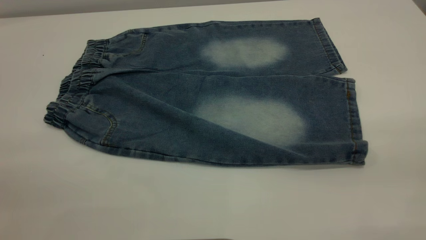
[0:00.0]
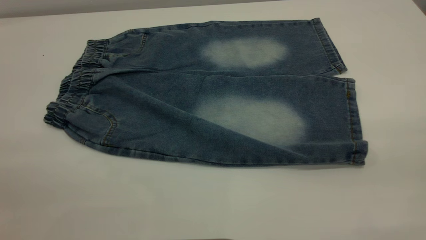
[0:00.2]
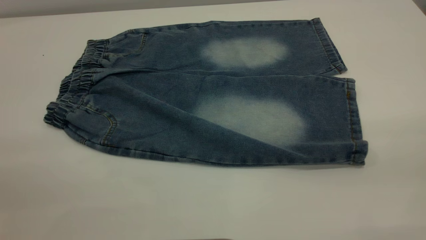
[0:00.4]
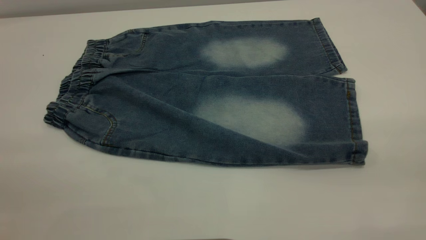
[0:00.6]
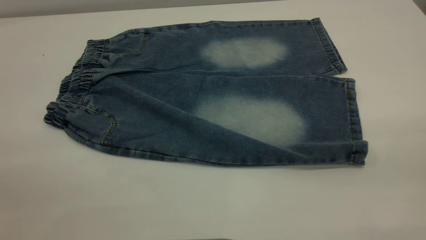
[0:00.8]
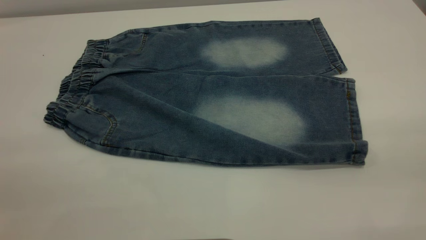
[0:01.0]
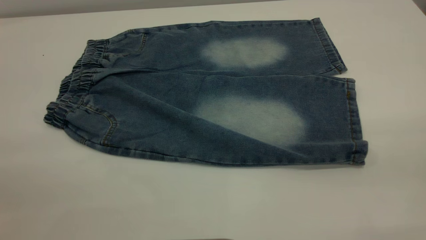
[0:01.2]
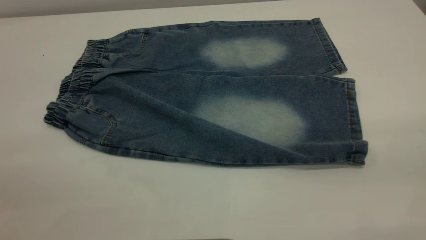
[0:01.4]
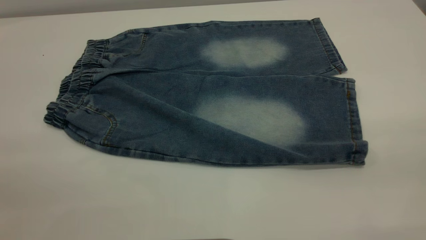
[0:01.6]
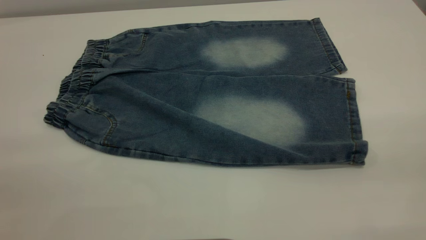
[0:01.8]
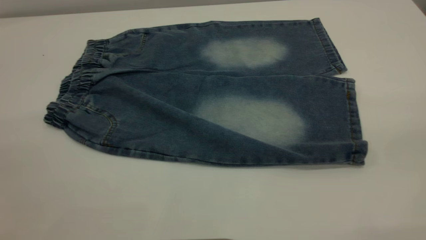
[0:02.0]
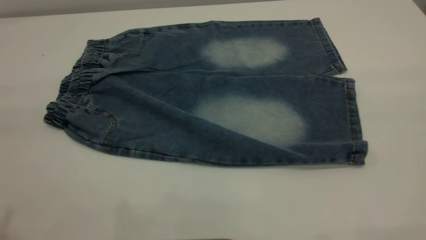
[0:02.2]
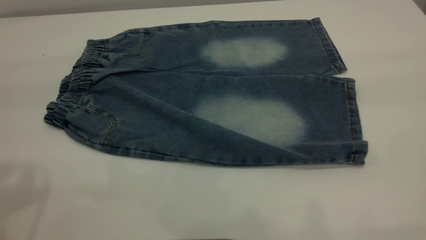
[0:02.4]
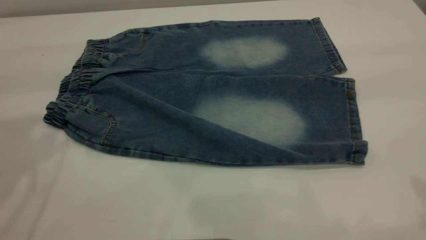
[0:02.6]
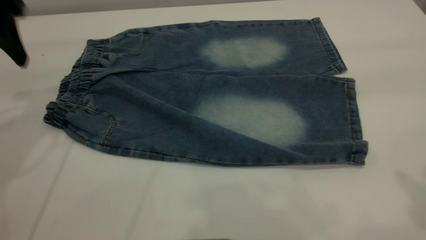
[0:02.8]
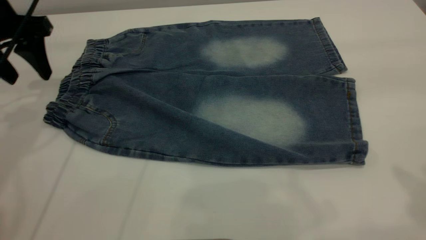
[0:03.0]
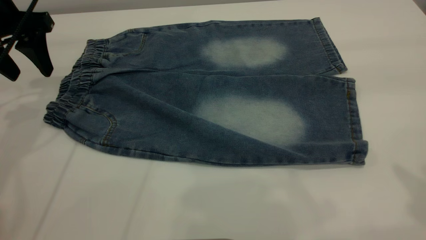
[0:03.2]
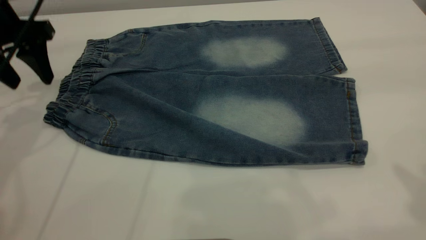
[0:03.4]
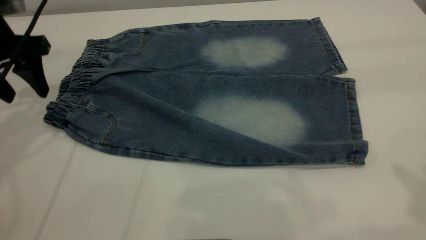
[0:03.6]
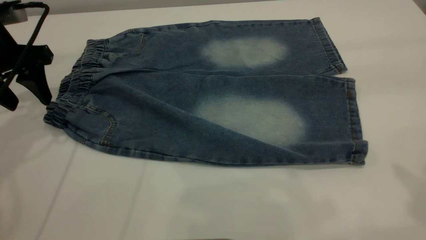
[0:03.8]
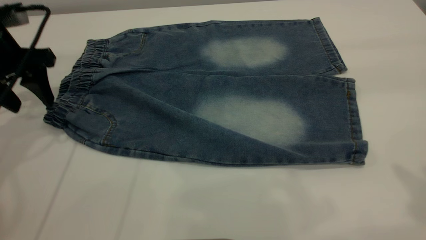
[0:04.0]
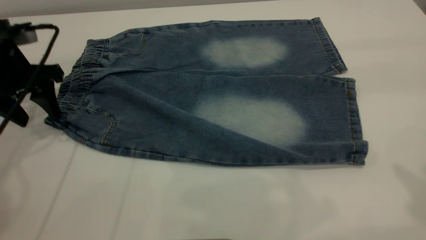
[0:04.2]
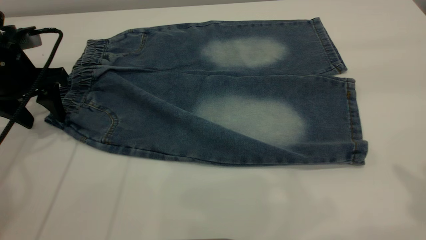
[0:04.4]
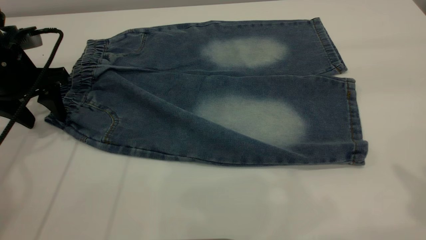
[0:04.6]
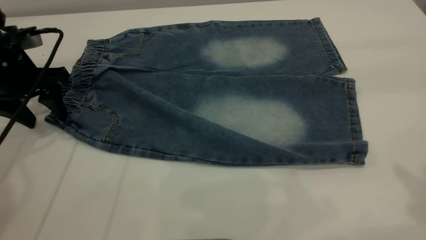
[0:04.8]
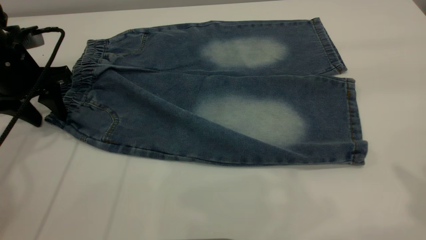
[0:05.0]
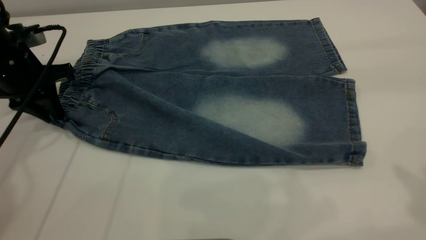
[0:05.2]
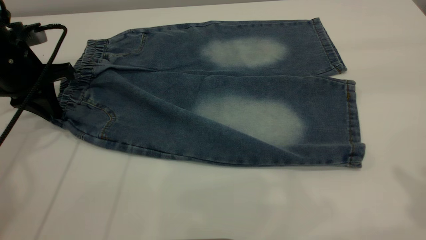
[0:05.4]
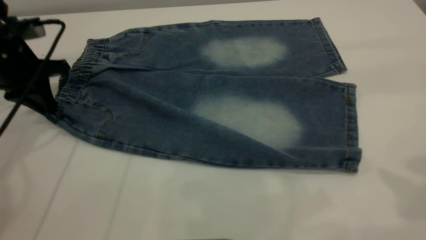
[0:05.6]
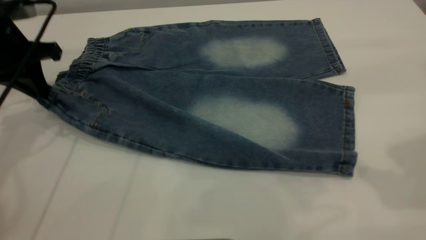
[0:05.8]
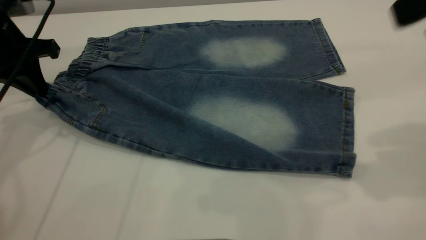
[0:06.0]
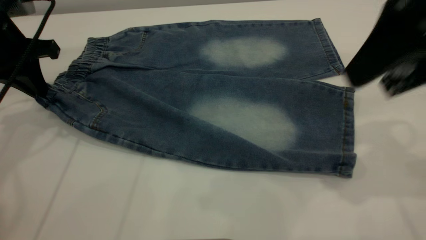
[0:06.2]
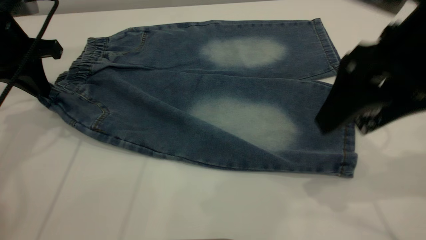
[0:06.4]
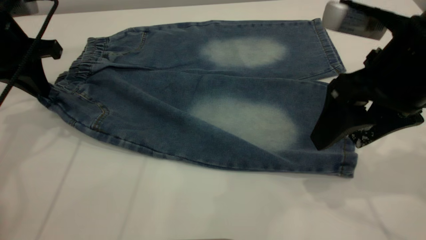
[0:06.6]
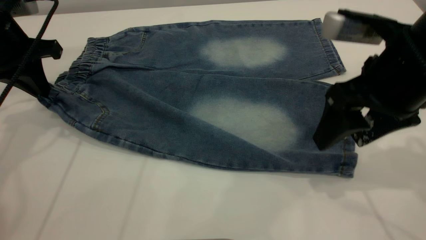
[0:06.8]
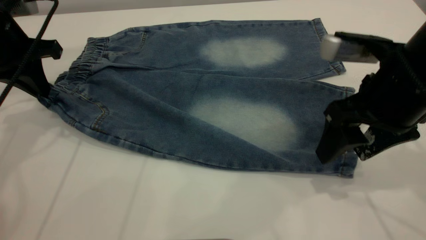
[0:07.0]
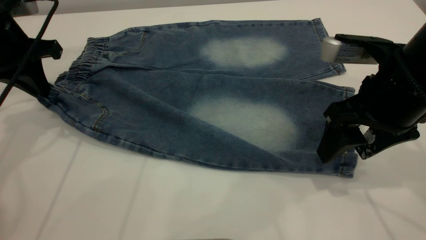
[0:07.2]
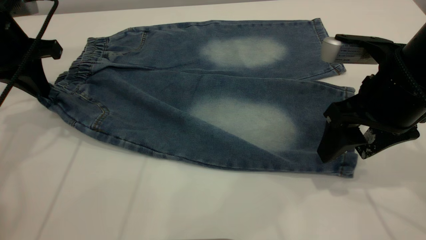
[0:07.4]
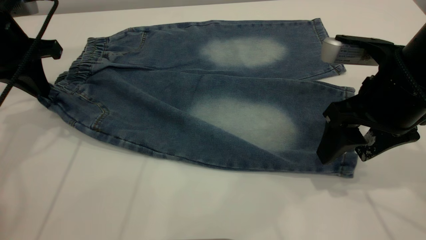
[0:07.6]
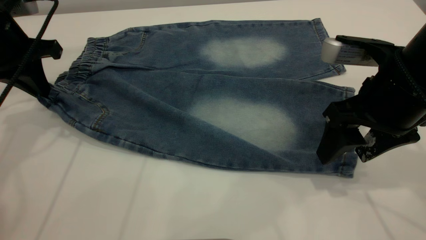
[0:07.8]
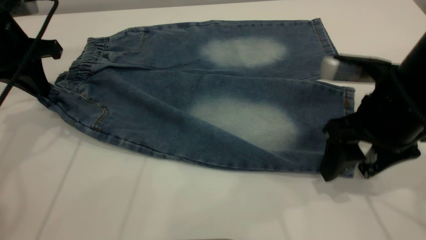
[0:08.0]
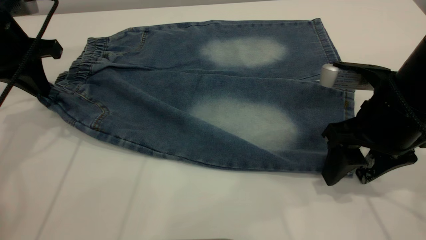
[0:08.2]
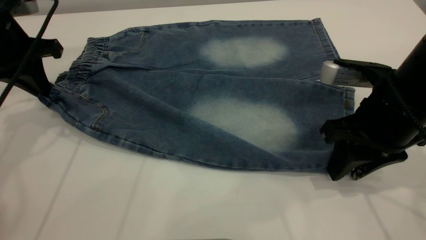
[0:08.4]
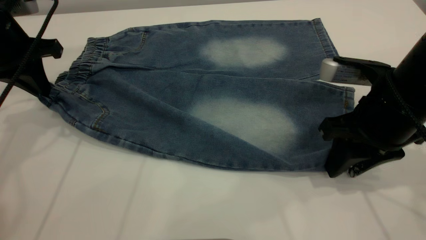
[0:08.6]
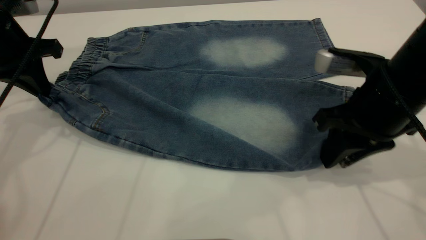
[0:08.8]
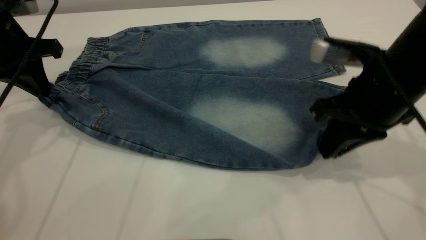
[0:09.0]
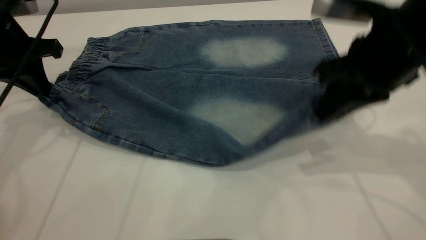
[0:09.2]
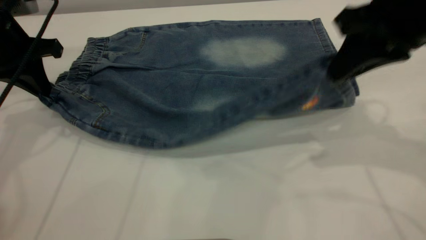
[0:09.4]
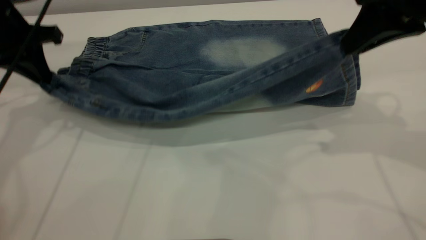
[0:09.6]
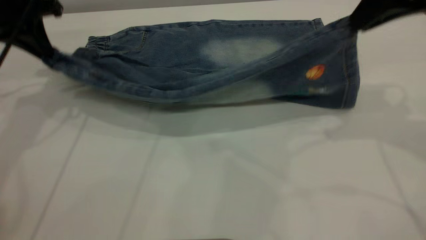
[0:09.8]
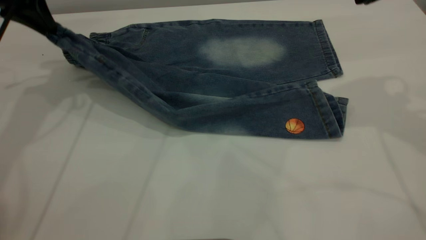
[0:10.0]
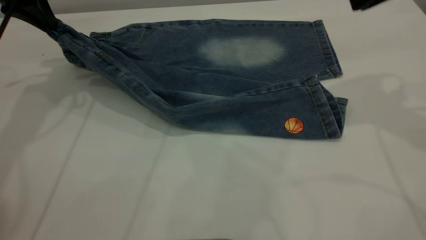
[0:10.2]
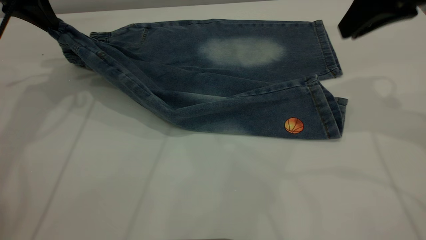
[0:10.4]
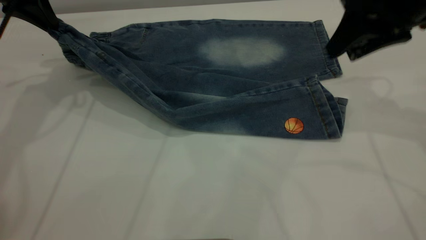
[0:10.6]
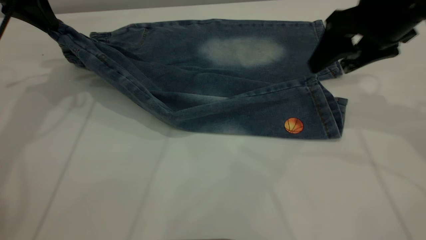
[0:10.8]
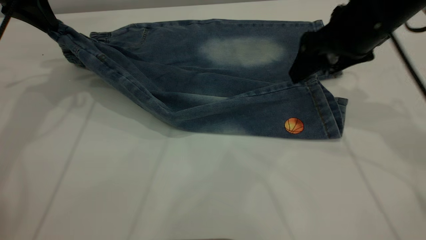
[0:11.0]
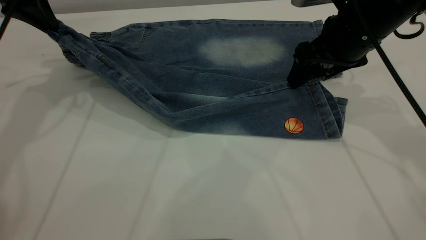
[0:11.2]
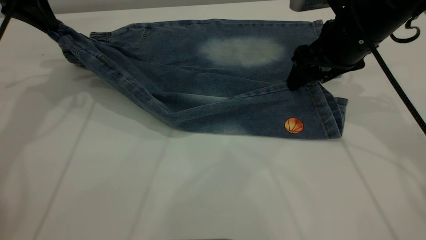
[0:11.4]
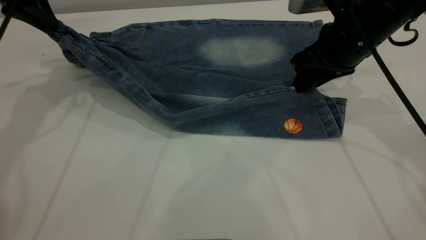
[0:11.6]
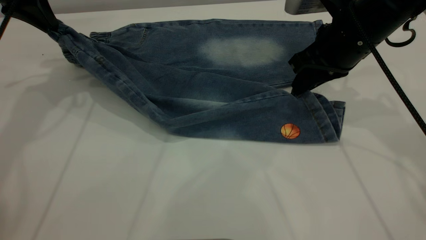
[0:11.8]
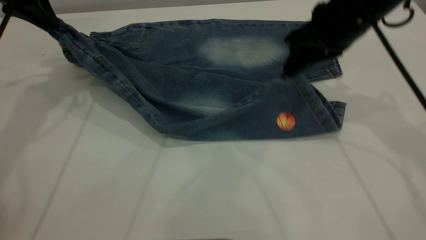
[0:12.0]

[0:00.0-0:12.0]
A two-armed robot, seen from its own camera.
0:00.0 to 0:01.6: Both grippers stay put.
0:01.6 to 0:03.0: The left gripper is displaced forward by about 40 cm.
0:03.0 to 0:04.4: The left gripper goes approximately 10 cm downward.
0:04.4 to 0:06.0: The right gripper travels downward and forward by about 10 cm; the left gripper closes.
0:06.0 to 0:07.6: The right gripper shifts some 15 cm downward.
0:07.6 to 0:09.0: The right gripper closes.
0:09.0 to 0:10.4: Both grippers move upward and forward, approximately 10 cm.
0:10.4 to 0:12.0: The right gripper heads downward and to the left, covering about 10 cm, and opens, then closes once more.

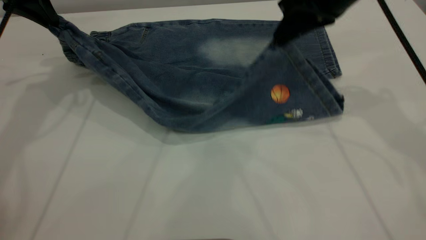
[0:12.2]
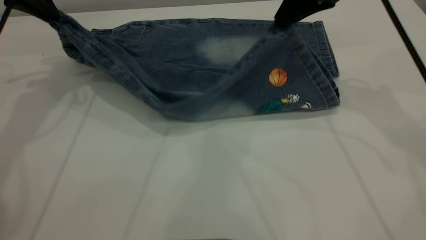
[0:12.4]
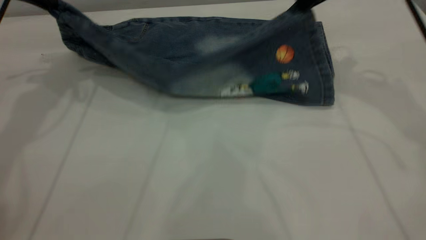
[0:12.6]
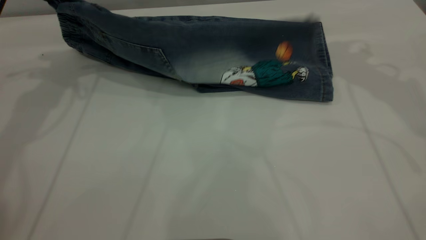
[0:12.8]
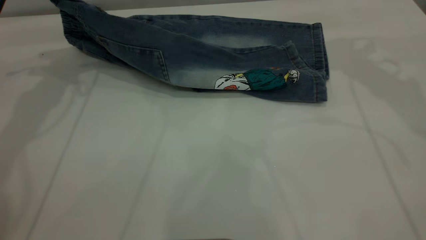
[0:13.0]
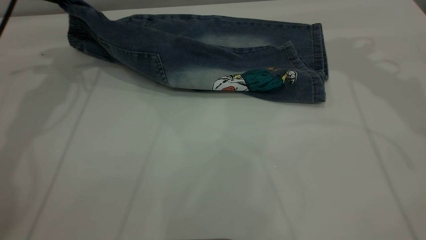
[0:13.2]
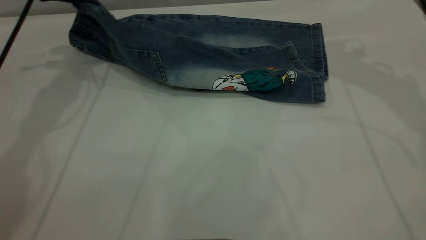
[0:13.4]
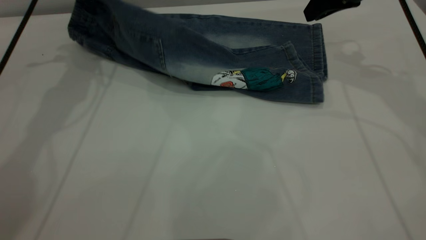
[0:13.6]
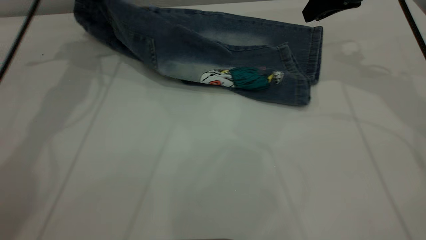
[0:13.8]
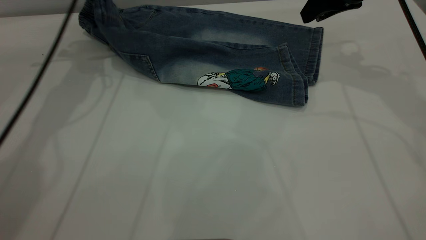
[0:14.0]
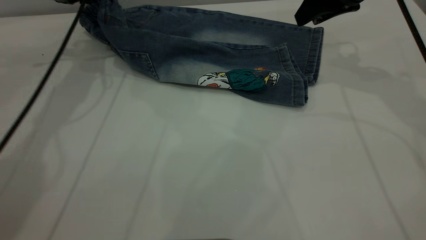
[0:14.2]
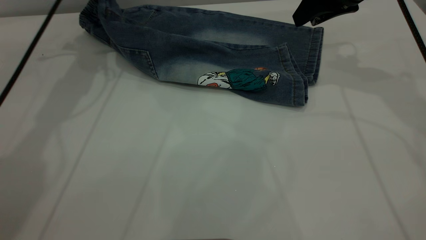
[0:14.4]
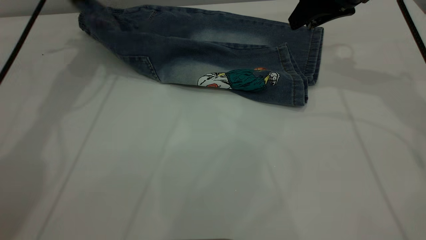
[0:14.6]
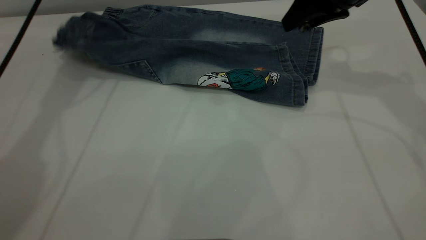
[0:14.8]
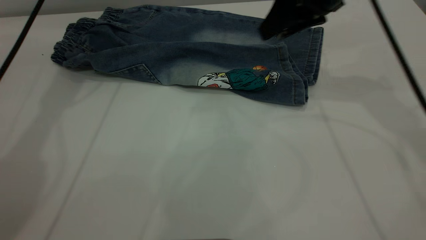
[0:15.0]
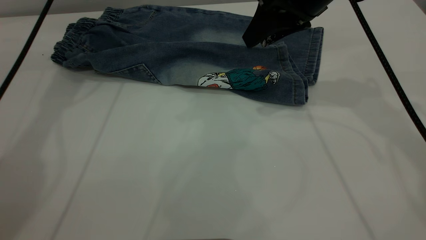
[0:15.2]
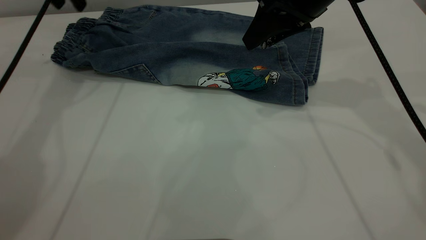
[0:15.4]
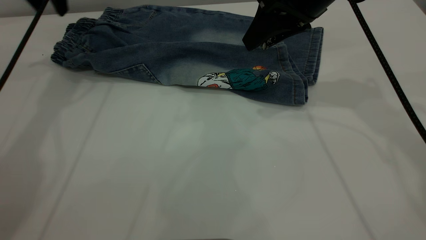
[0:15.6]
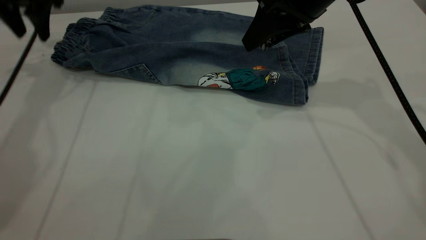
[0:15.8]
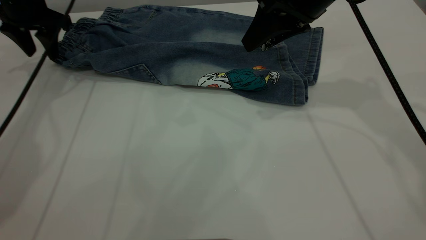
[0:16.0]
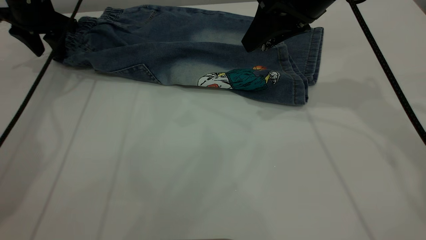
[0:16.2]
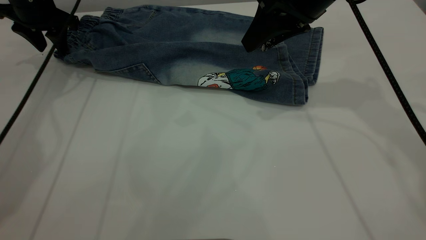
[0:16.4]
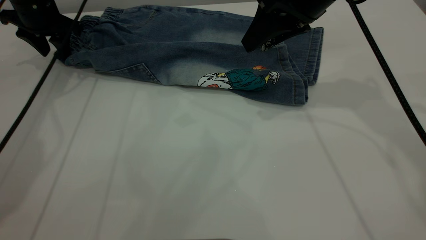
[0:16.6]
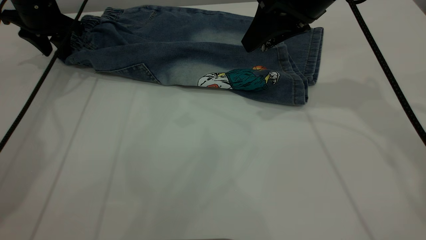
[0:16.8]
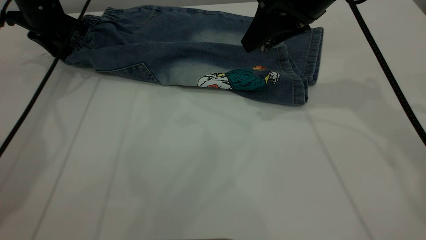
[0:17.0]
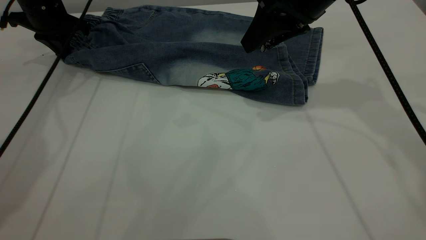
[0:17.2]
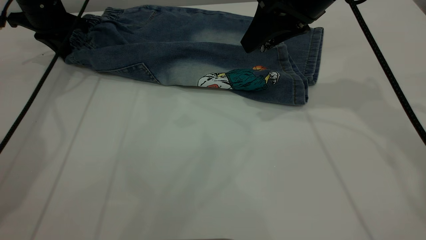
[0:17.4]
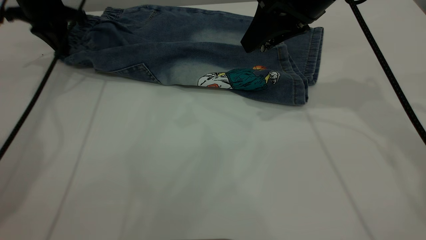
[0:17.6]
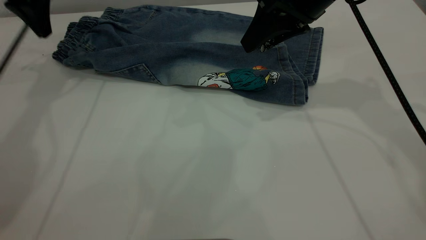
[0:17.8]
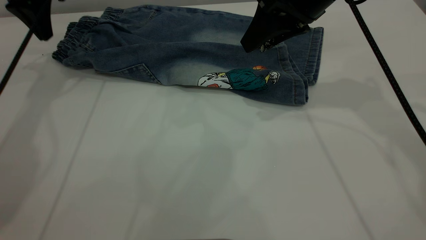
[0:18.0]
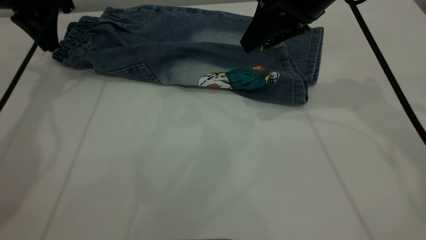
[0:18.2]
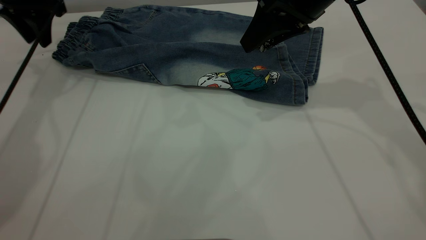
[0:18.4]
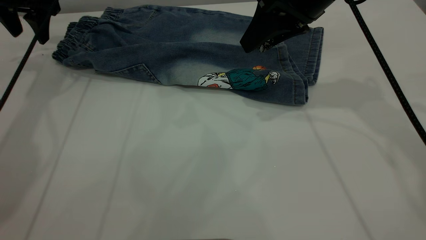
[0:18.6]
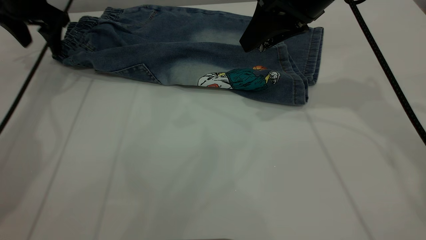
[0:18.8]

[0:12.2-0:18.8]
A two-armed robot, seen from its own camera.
Step, 0:12.2 to 0:15.6: Fold the bottom of the pants upward.
0:12.2 to 0:13.8: The right gripper is displaced to the right by roughly 5 cm, while the left gripper is displaced forward by roughly 5 cm.
0:13.8 to 0:15.4: The left gripper opens up; the right gripper is displaced to the left by approximately 10 cm.
0:15.4 to 0:17.2: The left gripper moves downward, approximately 10 cm, and closes its fingers.
0:17.2 to 0:18.8: The left gripper opens up.
